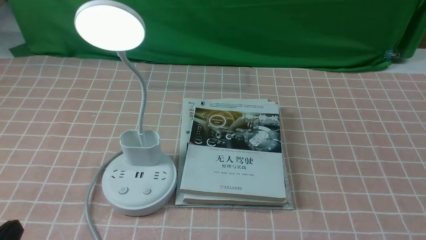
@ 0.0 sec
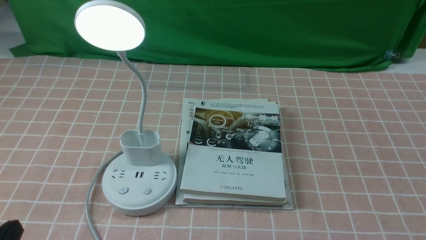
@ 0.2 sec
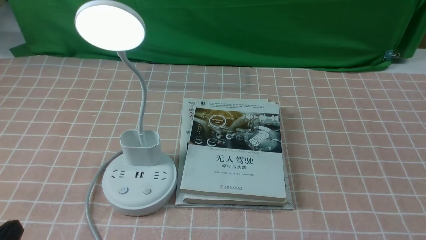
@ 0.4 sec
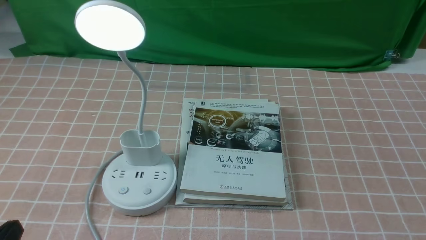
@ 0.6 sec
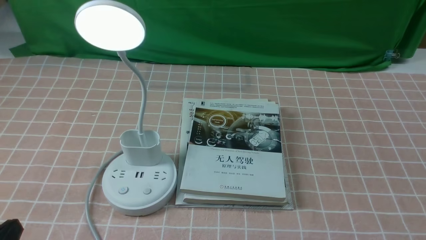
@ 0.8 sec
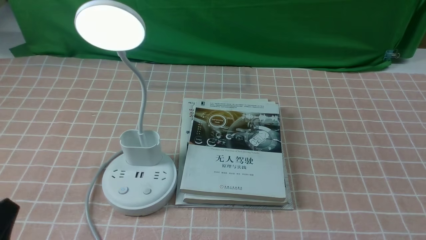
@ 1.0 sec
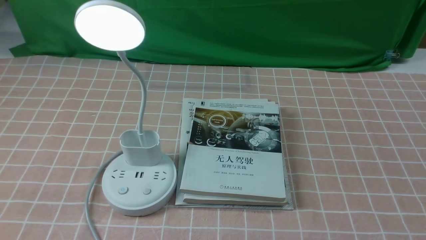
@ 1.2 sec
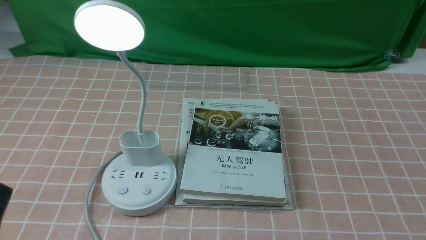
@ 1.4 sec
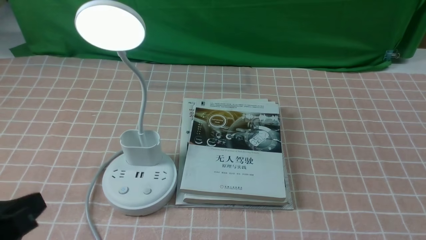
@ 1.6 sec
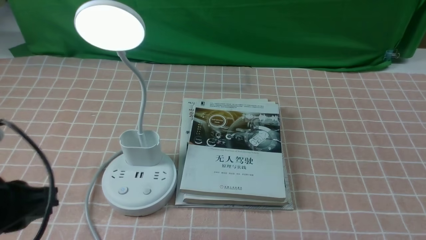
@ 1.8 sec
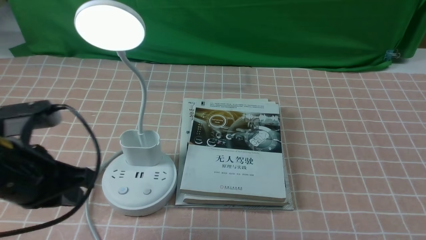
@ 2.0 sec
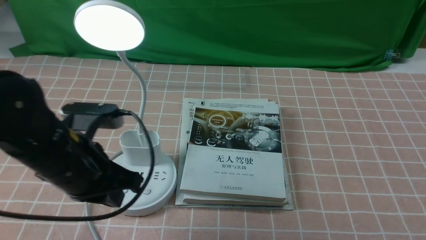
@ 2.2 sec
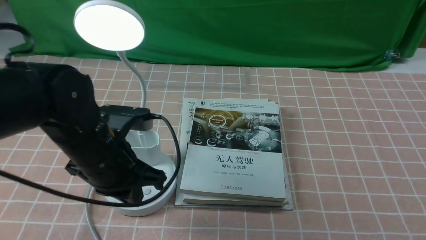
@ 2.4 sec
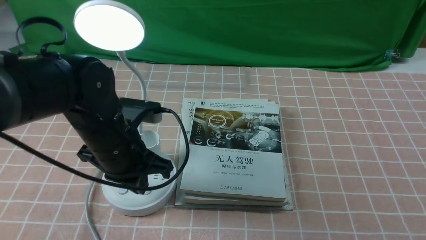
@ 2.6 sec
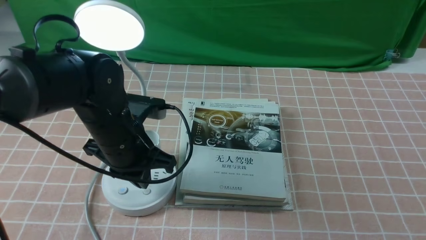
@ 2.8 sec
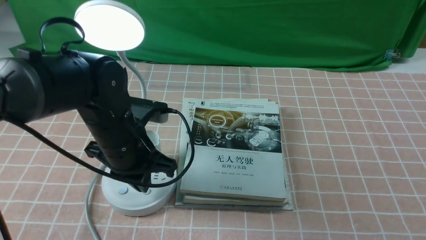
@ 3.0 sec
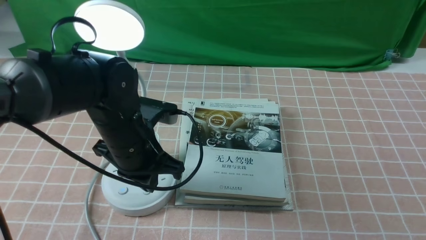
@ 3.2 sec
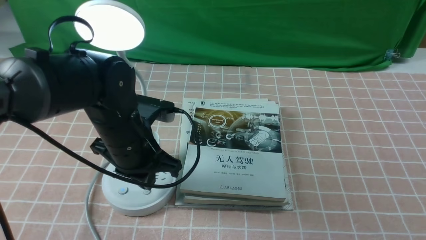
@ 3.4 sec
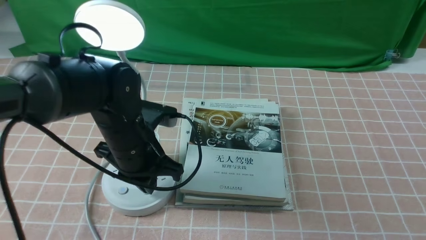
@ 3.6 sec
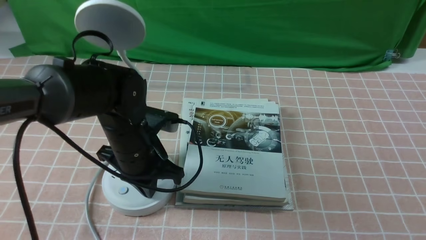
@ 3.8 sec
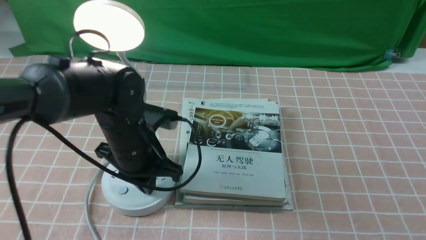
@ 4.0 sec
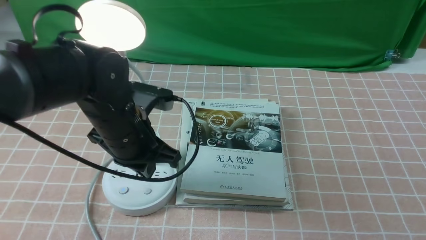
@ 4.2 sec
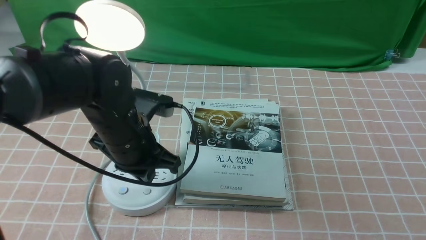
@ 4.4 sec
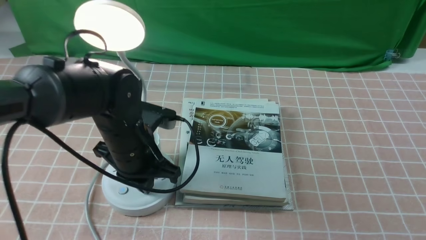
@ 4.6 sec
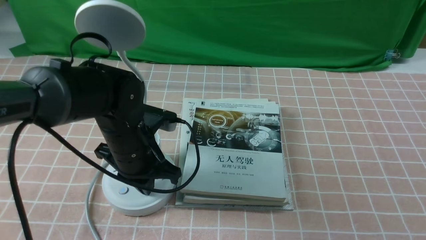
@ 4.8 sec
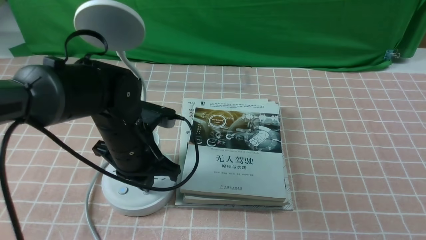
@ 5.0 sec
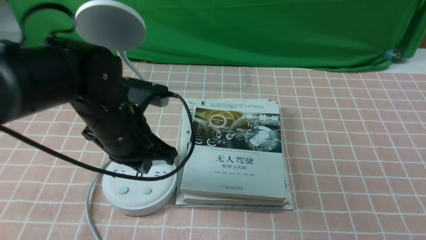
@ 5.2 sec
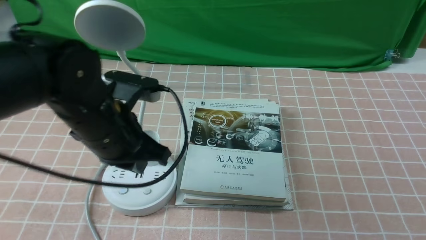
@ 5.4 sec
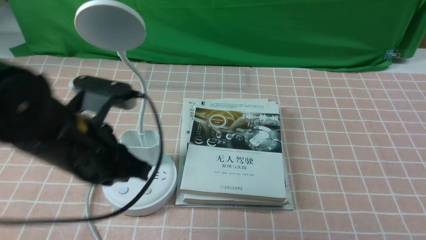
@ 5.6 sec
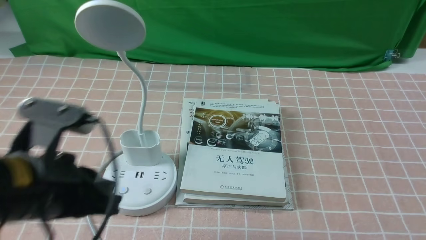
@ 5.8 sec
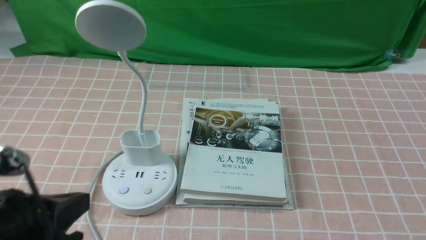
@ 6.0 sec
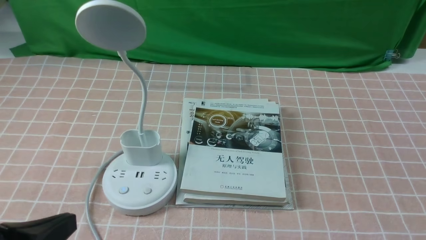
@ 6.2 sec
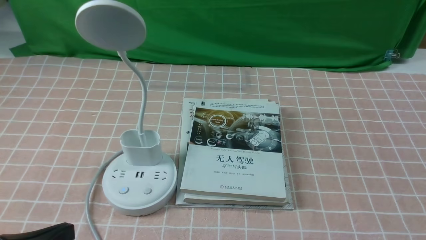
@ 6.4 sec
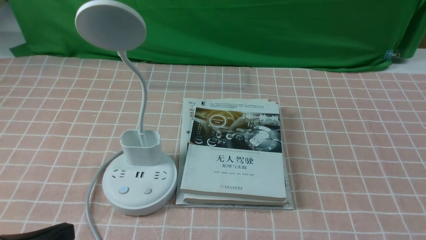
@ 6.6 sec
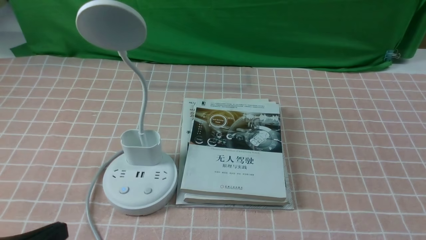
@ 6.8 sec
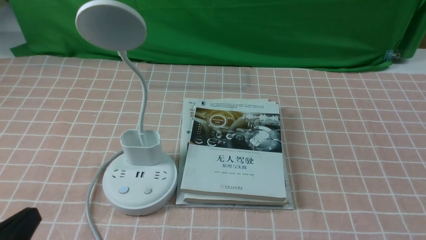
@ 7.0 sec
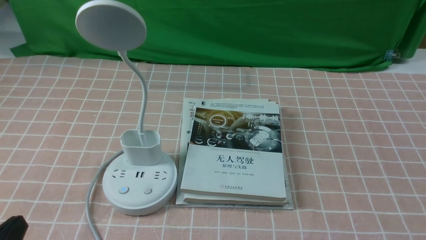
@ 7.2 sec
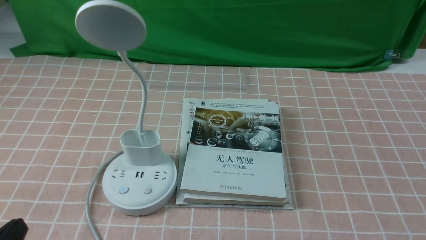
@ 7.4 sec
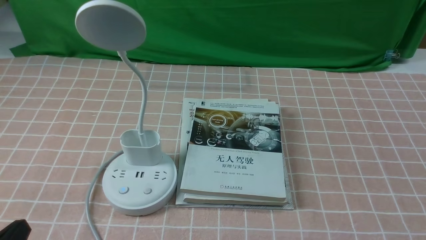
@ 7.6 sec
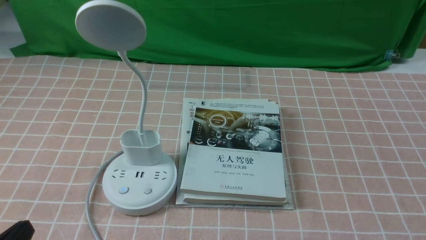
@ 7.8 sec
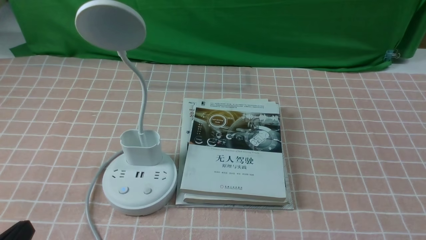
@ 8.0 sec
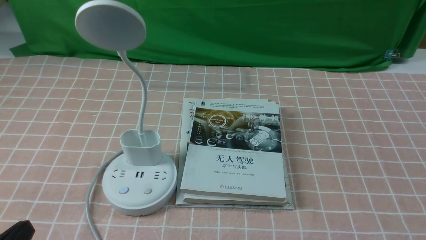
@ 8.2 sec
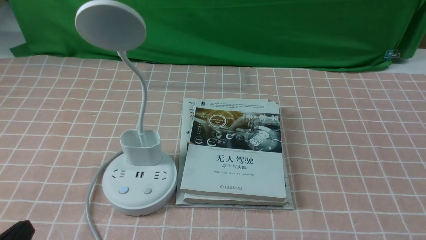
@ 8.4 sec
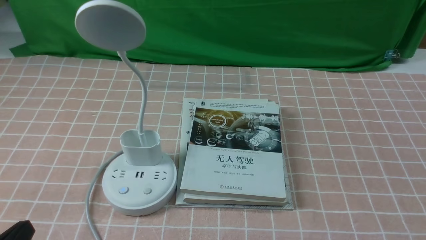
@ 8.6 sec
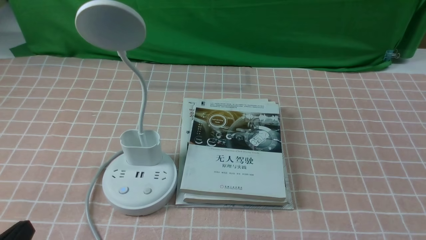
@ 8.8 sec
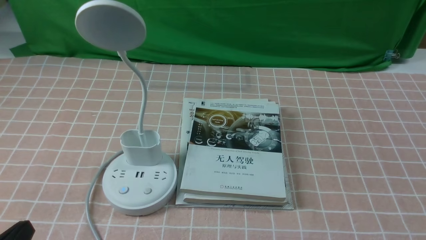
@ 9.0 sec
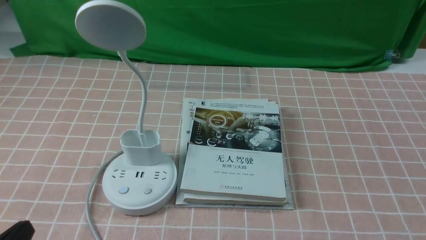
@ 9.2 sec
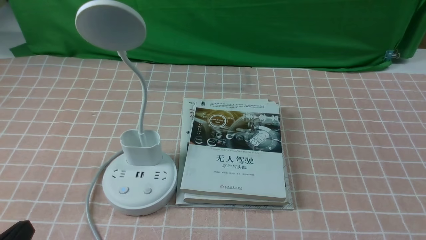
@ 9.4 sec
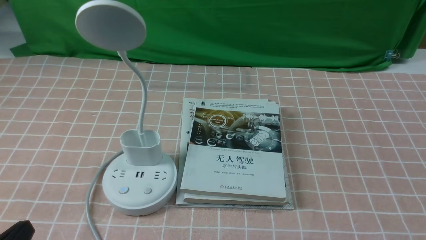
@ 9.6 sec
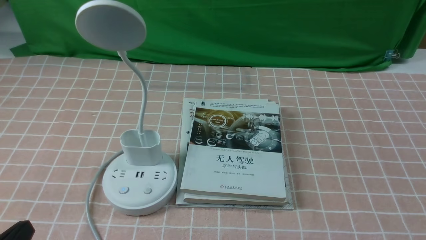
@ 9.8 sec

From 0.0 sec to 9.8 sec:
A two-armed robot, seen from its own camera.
Task of the whole recording: turn off the table lamp on the pink coffee tablecloth by hand.
Step, from 0.0 sec to 5.0 sec: use the left arm to press the button switch on the lamp holder.
From 1.4 sec to 2.8 sec: The left gripper goes about 25 cm forward and to the right, and closes.
From 2.8 sec to 4.2 sec: The grippers move only a little.
From 4.2 sec to 5.6 sec: The left gripper moves backward and upward, about 10 cm.
From 5.6 sec to 7.0 sec: The left gripper is displaced backward and to the left by approximately 20 cm.
From 8.4 sec to 9.8 sec: Both grippers stay put.
